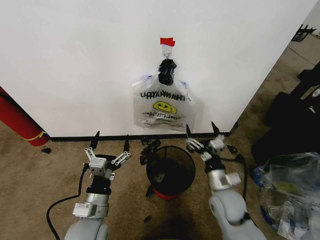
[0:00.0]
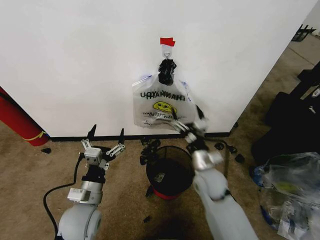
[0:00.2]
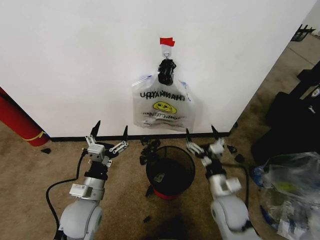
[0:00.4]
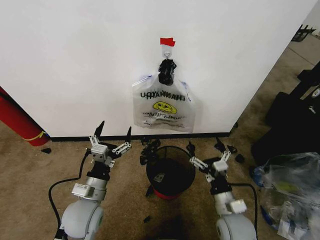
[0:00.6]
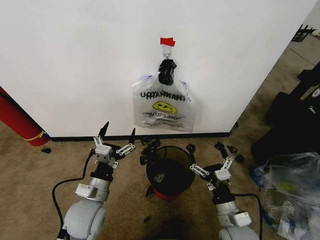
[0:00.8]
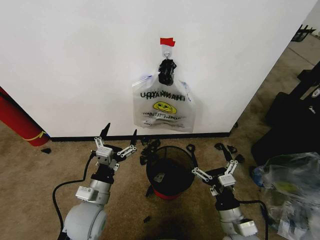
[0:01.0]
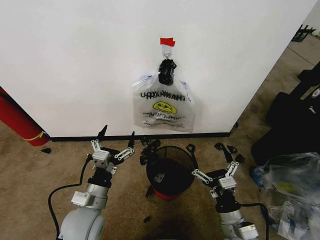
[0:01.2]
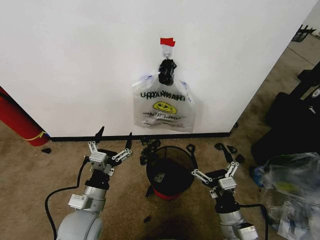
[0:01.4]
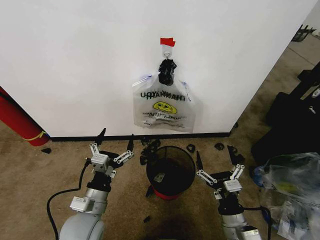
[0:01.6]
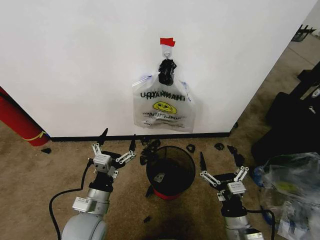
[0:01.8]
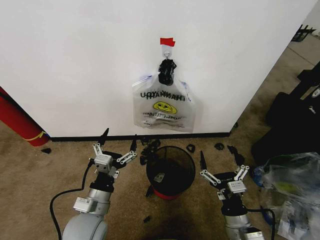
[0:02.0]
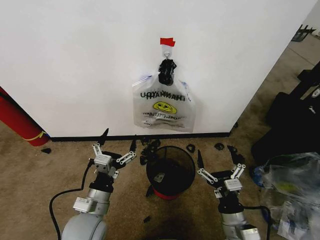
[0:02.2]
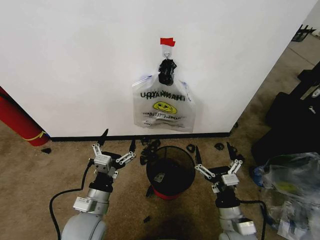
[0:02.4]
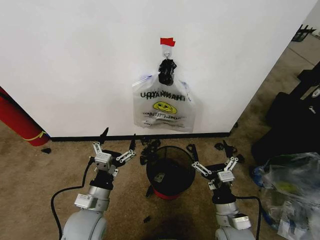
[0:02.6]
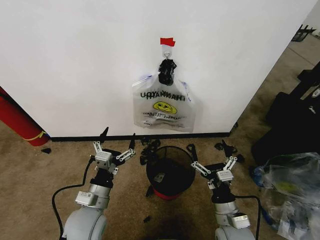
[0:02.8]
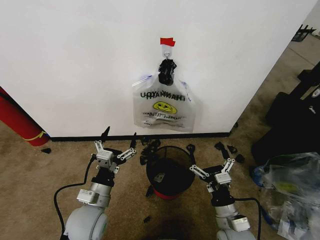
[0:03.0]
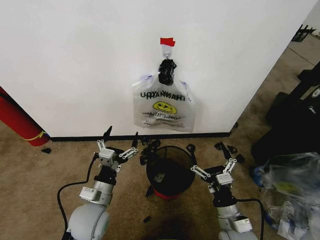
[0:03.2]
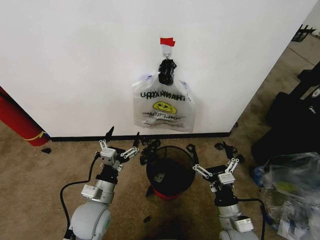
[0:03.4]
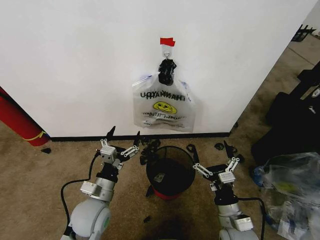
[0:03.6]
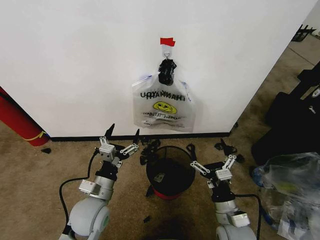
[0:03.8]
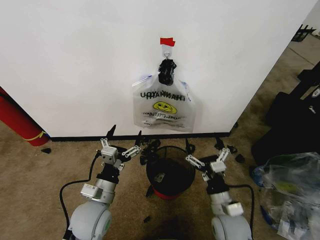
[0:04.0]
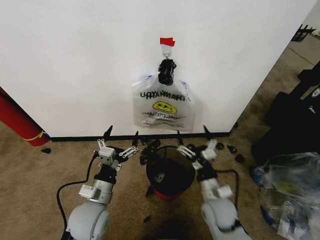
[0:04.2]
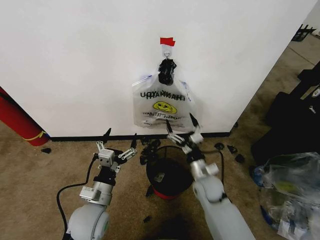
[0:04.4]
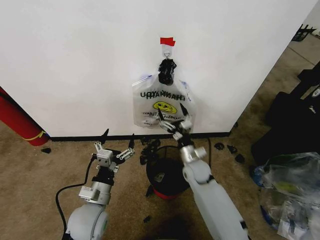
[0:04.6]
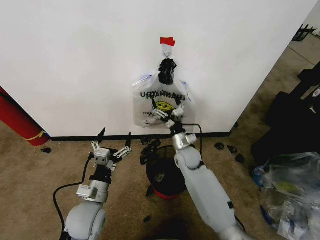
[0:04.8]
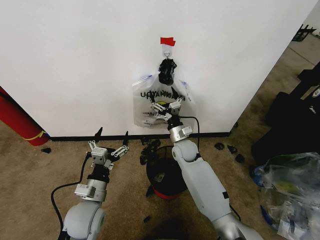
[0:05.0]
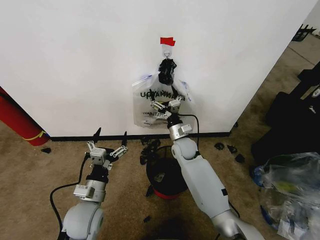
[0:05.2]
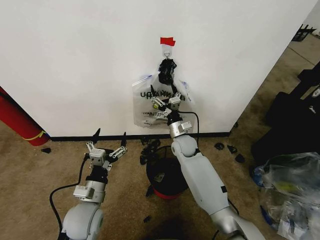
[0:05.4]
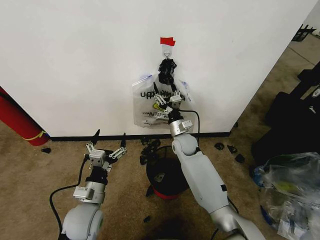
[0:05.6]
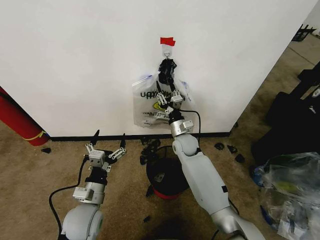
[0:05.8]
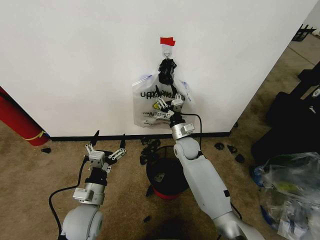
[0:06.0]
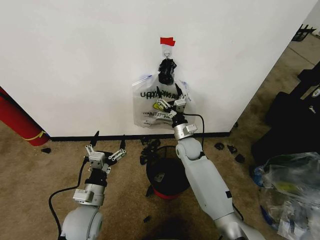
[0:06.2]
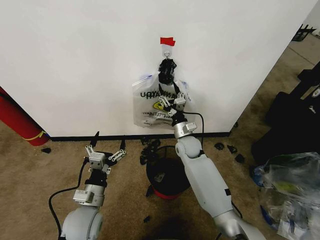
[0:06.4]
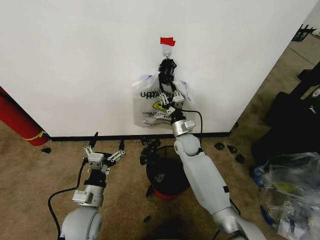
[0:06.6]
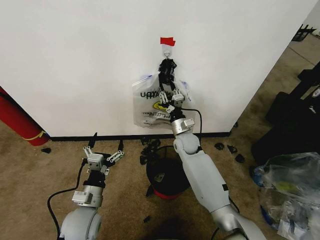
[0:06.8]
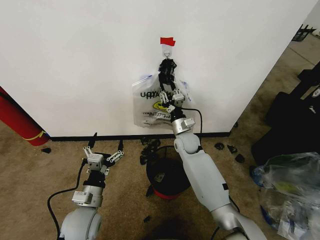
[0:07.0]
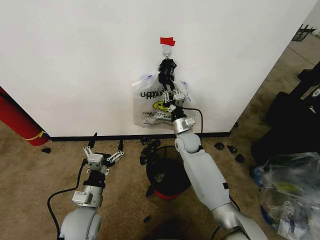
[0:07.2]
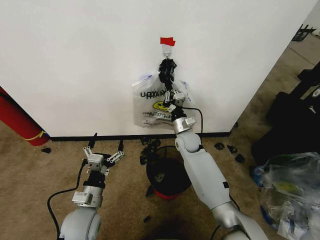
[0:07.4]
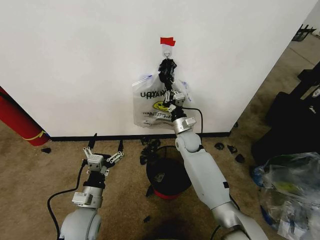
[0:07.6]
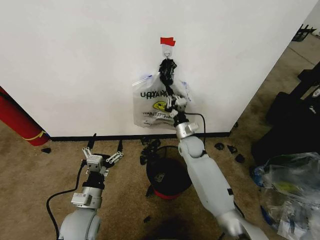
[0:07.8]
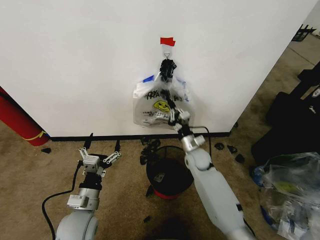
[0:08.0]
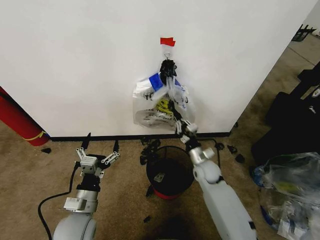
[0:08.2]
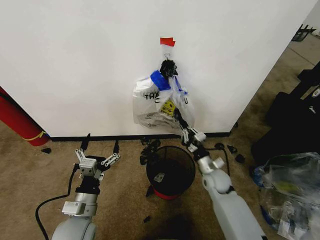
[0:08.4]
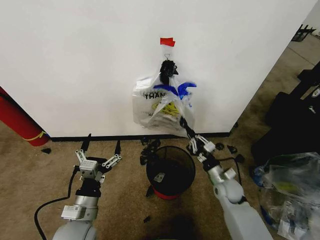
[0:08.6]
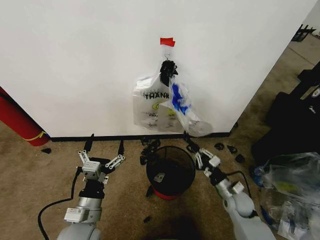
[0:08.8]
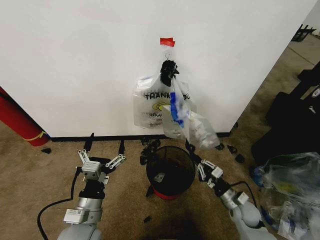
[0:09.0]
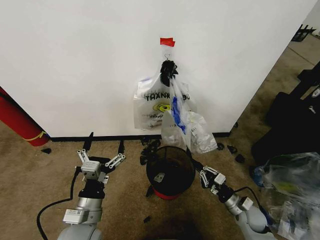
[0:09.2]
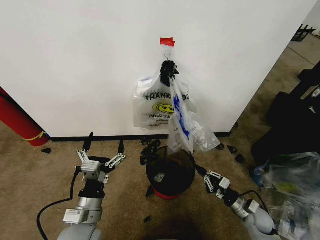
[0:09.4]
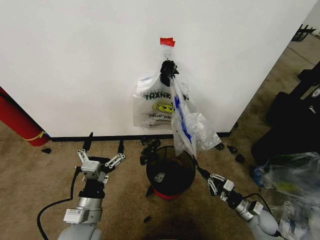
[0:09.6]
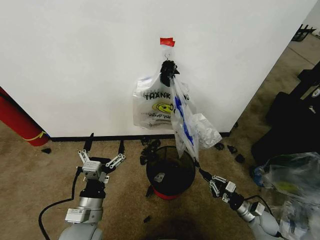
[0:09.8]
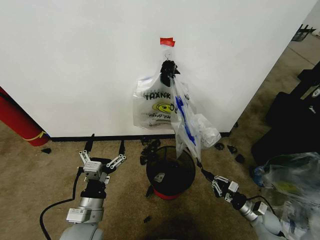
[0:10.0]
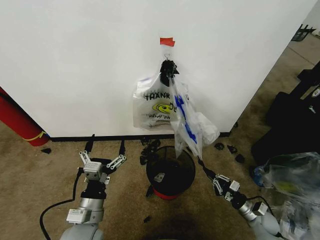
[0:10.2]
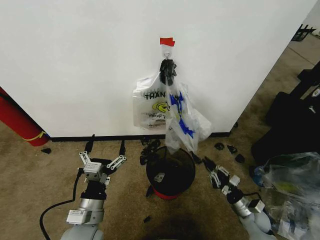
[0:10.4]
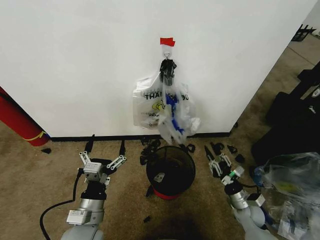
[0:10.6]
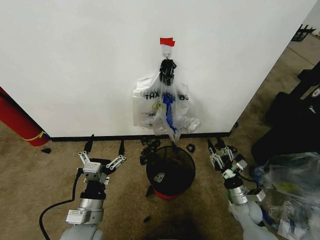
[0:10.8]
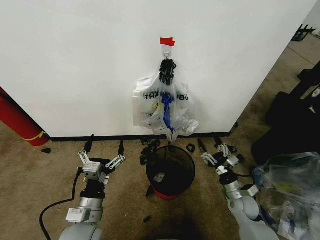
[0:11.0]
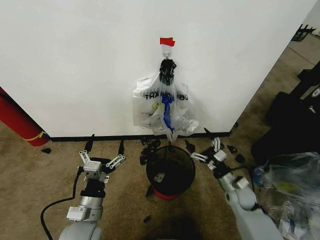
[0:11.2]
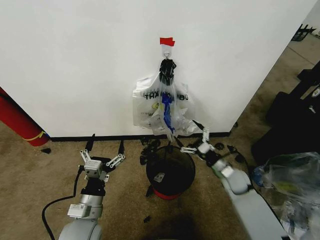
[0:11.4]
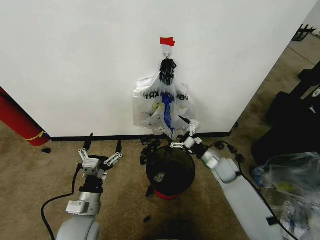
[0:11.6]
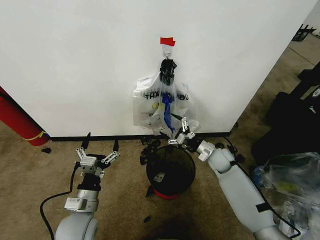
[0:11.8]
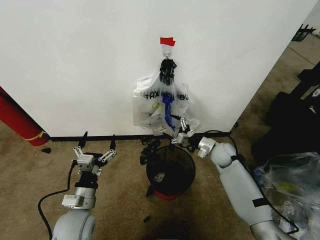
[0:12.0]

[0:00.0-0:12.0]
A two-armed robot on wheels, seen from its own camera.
Task of the whole recording: Pick up the garbage bag from the wall and place it over the trash bin.
0:01.6 to 0:03.0: The grippers stay close to where they were, moving slightly.
0:03.0 to 0:04.4: The right gripper is displaced forward by some 15 cm.
0:04.4 to 0:06.0: The right gripper moves forward and to the left, some 15 cm.
0:06.0 to 0:07.6: The right gripper closes.
0:07.6 to 0:09.0: The right gripper heads backward, to the right and downward, covering approximately 35 cm, while the left gripper changes place by about 5 cm.
0:09.0 to 0:10.4: The right gripper is displaced to the right by about 5 cm.
0:10.4 to 0:12.0: The left gripper changes place by approximately 5 cm. Meanwhile the right gripper shifts some 25 cm forward, upward and to the left, and opens.

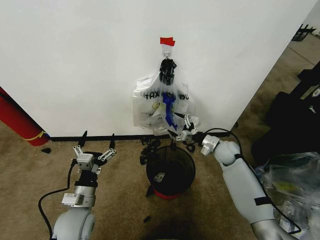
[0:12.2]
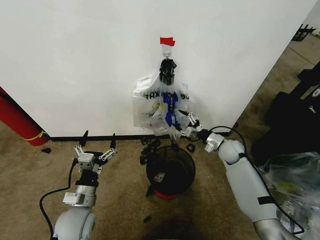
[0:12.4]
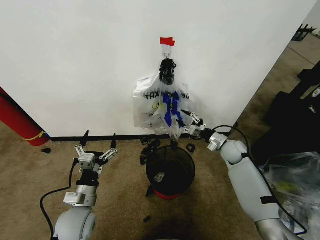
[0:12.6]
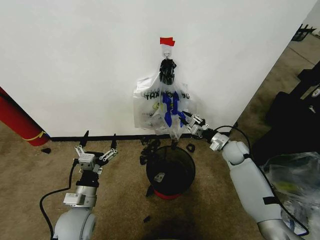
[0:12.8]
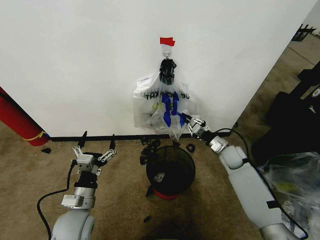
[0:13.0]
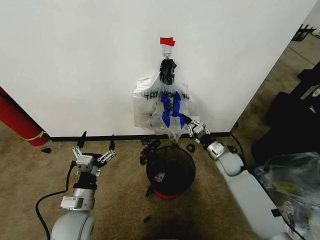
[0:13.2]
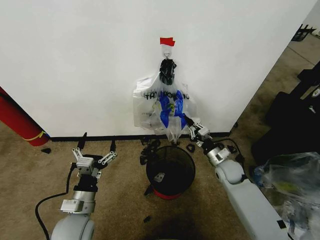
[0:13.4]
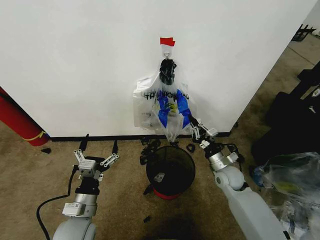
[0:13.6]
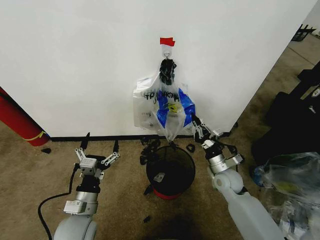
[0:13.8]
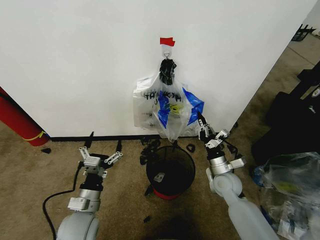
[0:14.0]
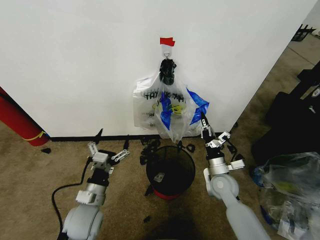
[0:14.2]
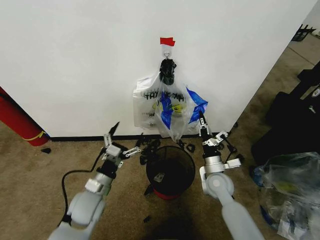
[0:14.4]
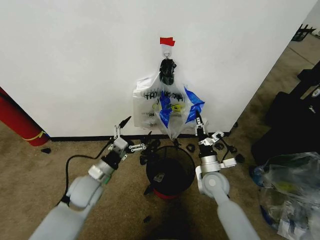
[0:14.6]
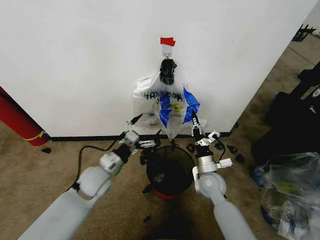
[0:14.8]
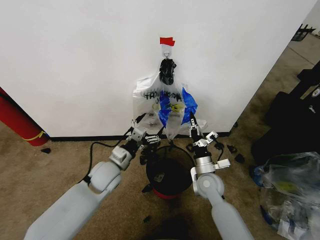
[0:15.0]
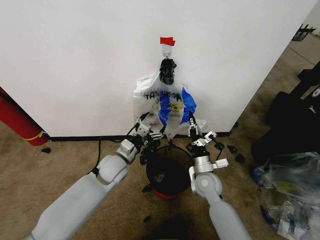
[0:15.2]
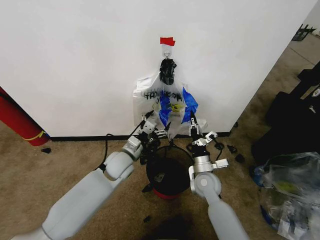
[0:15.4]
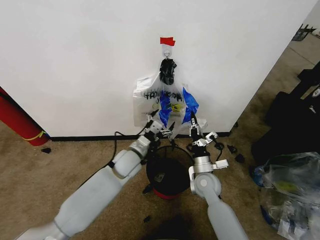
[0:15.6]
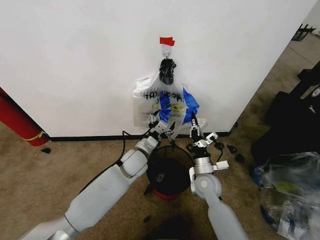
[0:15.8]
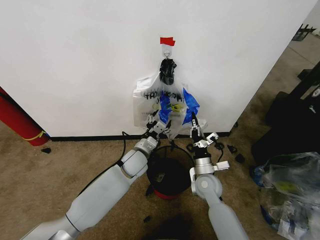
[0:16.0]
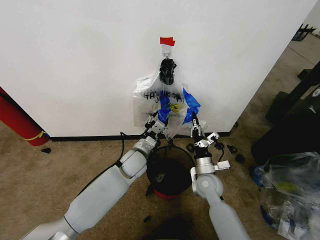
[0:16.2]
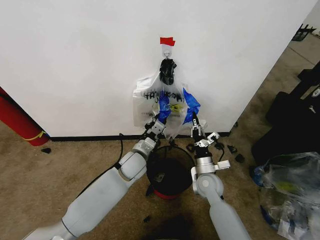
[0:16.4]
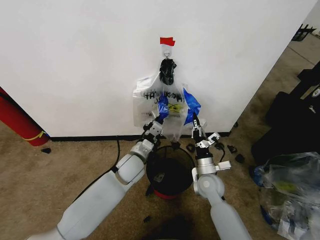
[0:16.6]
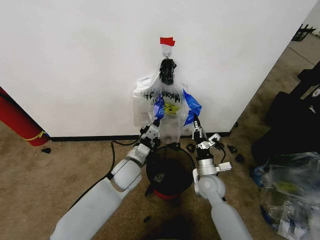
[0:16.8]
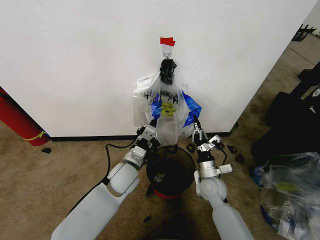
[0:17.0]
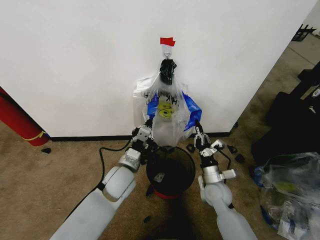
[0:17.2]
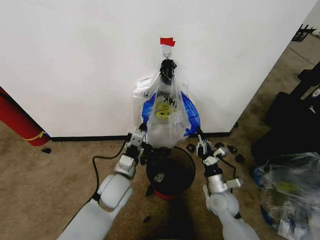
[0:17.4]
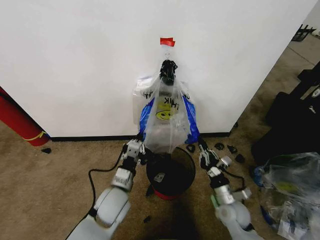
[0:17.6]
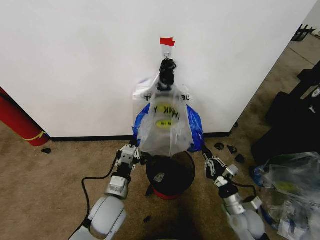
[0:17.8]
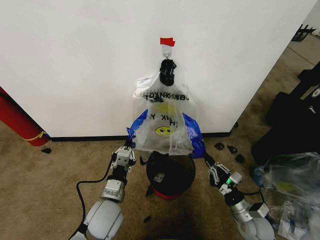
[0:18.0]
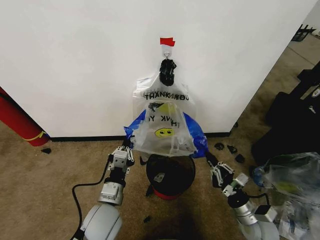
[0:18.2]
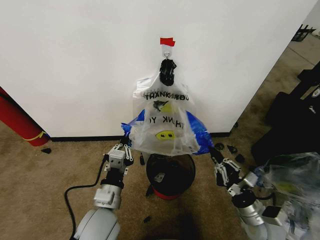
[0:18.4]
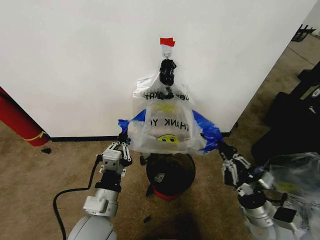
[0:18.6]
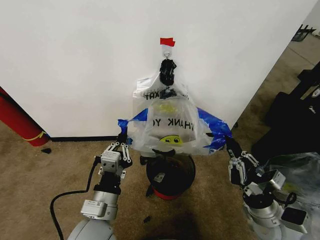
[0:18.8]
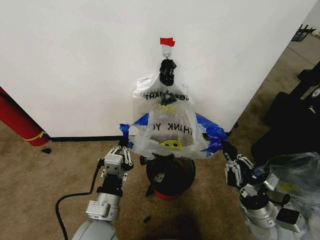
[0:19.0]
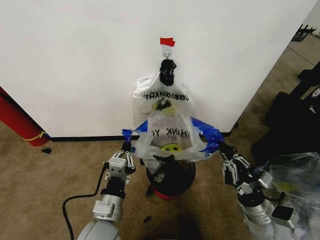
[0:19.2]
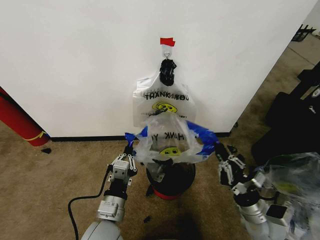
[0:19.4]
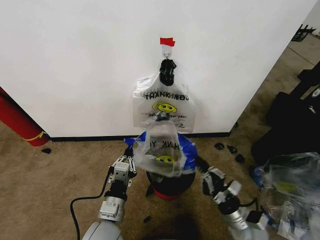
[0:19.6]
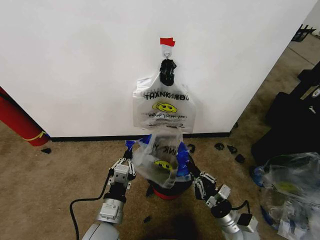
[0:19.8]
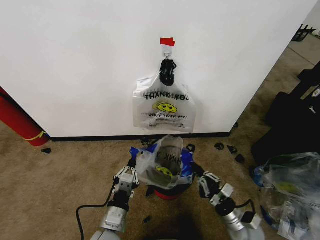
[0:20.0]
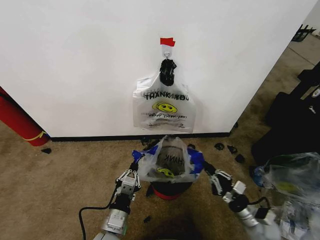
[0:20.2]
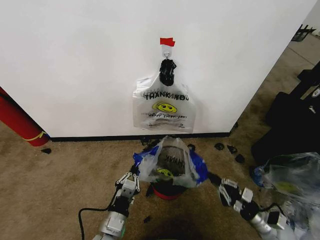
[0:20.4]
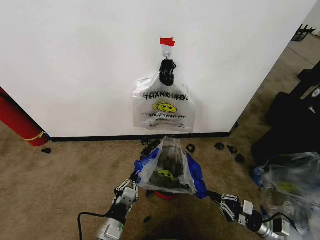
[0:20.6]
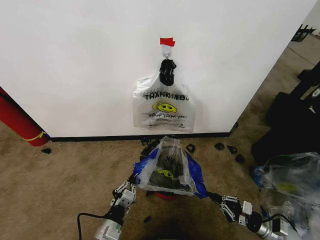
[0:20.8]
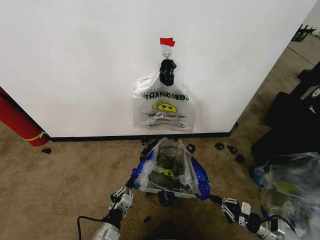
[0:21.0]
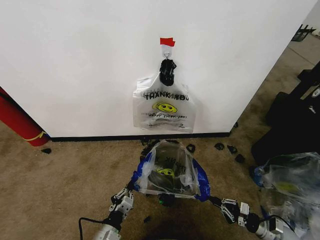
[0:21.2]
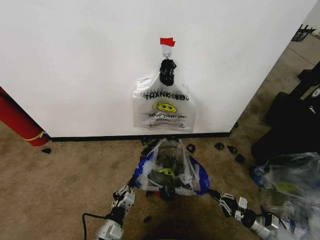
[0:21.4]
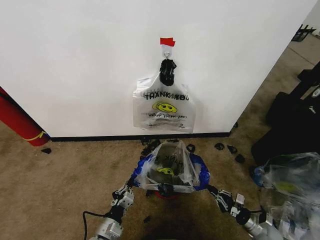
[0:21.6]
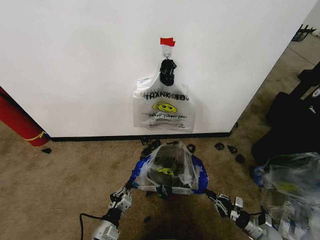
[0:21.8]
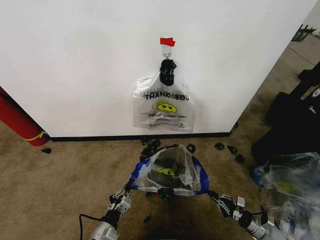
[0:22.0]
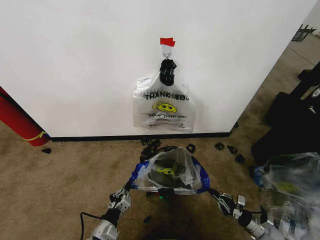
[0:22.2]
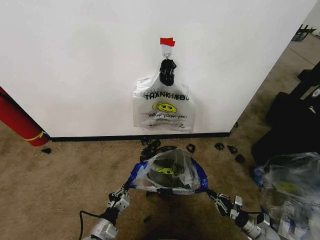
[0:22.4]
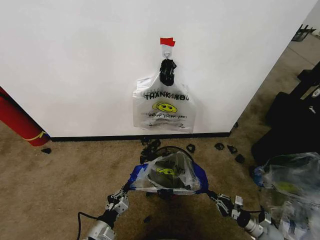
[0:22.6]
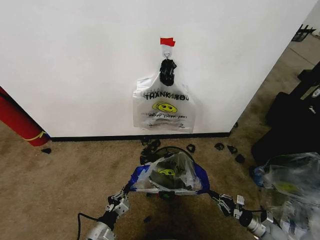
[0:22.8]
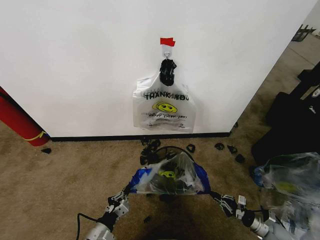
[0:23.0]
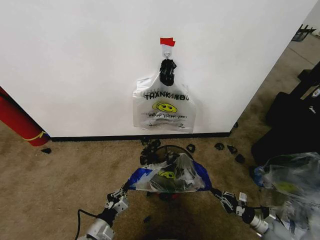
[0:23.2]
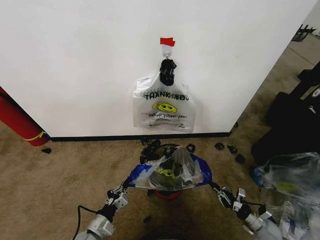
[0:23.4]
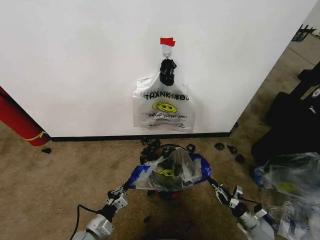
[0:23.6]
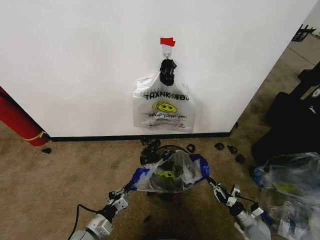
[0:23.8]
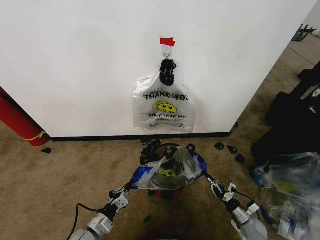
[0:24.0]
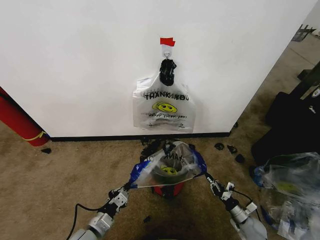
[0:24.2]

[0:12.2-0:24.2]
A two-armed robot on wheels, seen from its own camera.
Task of the whole recording: Pick up the garbage bag from the wall and place it over the trash bin.
0:12.2 to 0:13.8: The right gripper heads backward, covering roughly 10 cm, and closes.
0:13.8 to 0:15.2: The right gripper travels to the left by about 10 cm. Meanwhile the left gripper heads forward, covering some 20 cm.
0:15.2 to 0:16.6: The left gripper moves to the right, some 5 cm, and closes up.
0:16.6 to 0:18.2: The left gripper travels backward by some 20 cm; the right gripper goes approximately 20 cm backward and to the right.
0:18.2 to 0:19.8: The right gripper moves roughly 10 cm upward and comes back.
0:19.8 to 0:21.2: The left gripper travels downward by approximately 10 cm. Meanwhile the right gripper heads to the right and downward, covering roughly 20 cm.
0:21.2 to 0:22.6: The left gripper changes place by some 5 cm. The right gripper is displaced downward by approximately 5 cm.
0:22.6 to 0:24.2: The right gripper shifts by about 5 cm.
